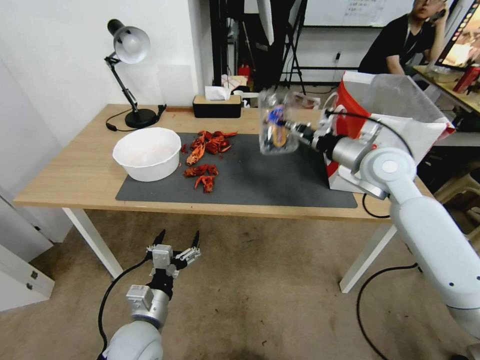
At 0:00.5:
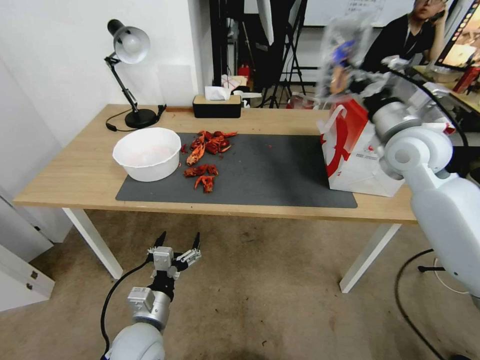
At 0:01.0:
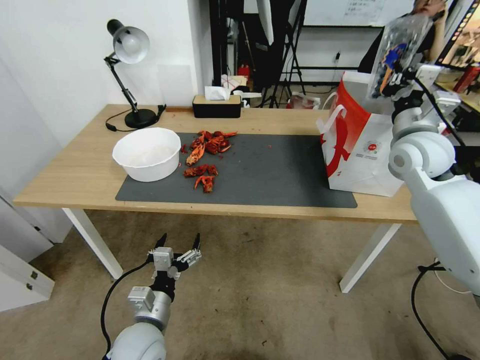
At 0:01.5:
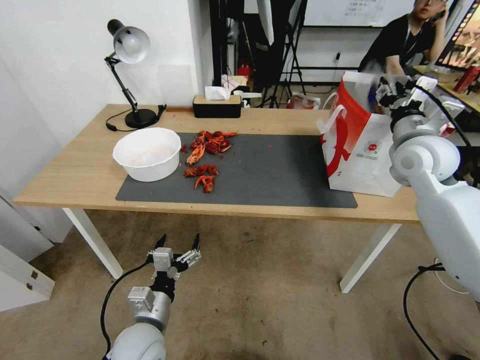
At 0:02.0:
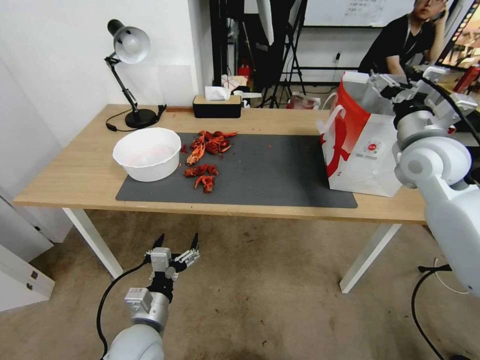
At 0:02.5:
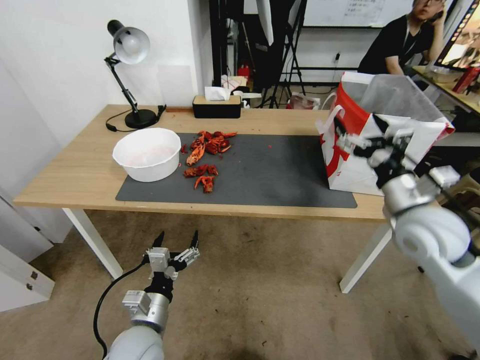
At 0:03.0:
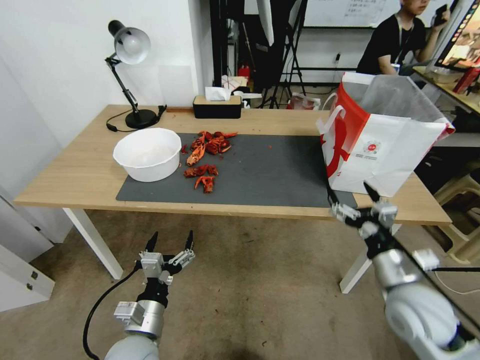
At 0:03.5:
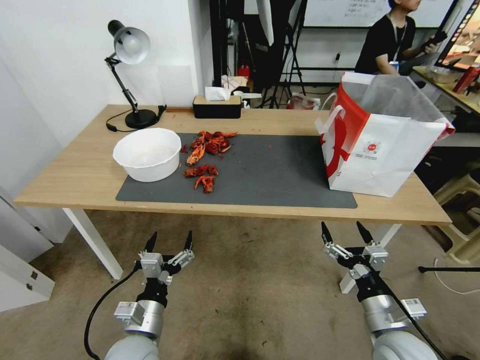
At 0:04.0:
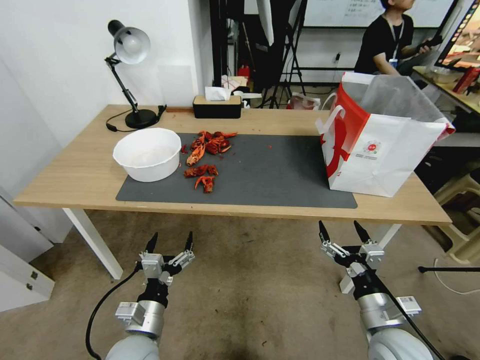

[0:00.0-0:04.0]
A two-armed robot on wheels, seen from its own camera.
Task of the whole recording: Close the takeout container lid, then place the container into the takeout bag.
0:00.0 to 0:02.0: The right gripper moves to the right, approximately 5 cm, and opens.
0:02.0 to 0:04.0: The right gripper is displaced downward and backward by about 35 cm.
